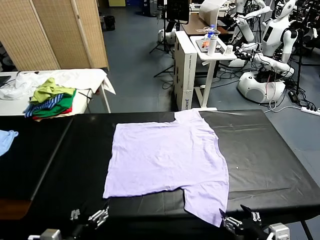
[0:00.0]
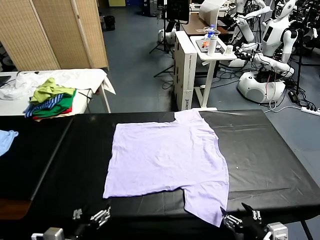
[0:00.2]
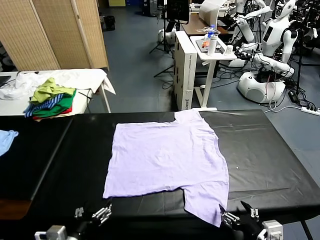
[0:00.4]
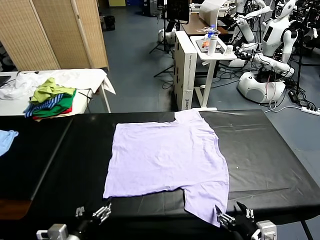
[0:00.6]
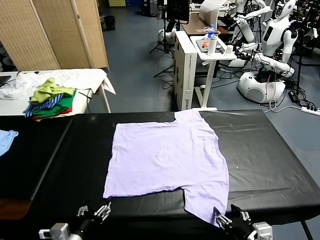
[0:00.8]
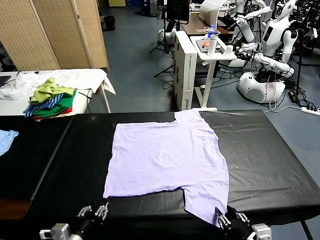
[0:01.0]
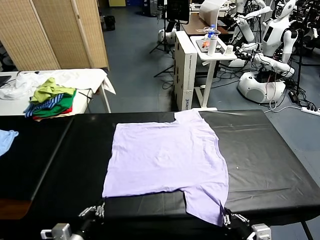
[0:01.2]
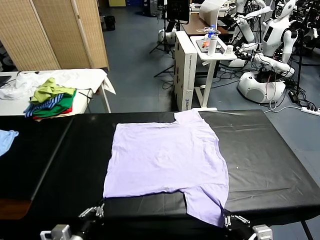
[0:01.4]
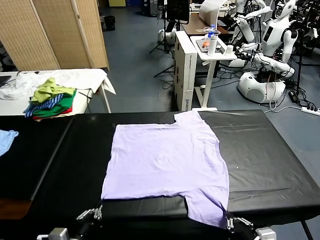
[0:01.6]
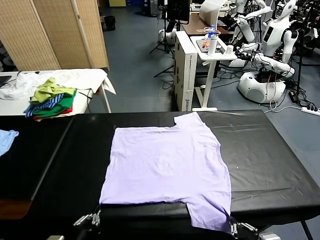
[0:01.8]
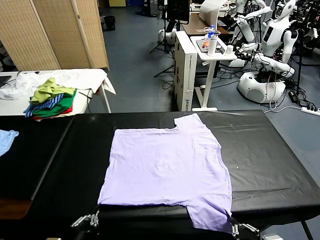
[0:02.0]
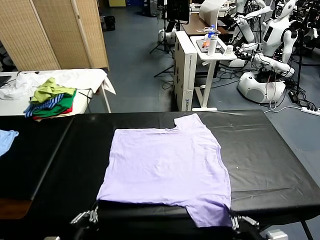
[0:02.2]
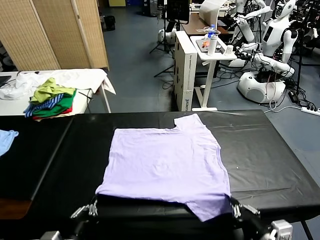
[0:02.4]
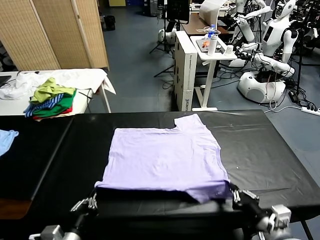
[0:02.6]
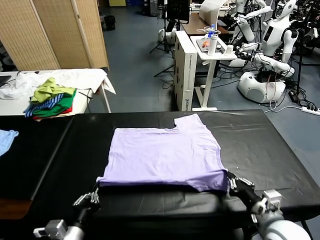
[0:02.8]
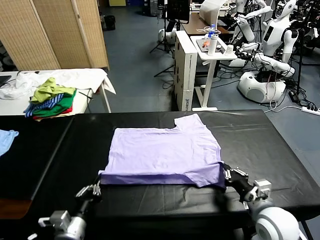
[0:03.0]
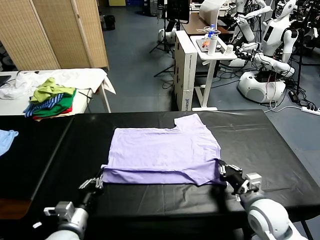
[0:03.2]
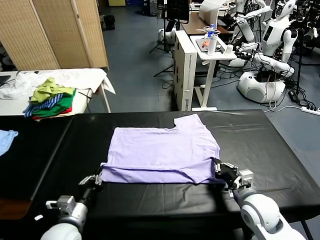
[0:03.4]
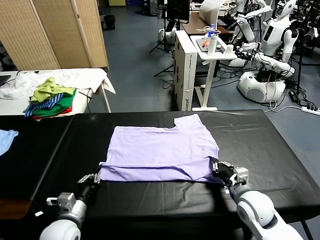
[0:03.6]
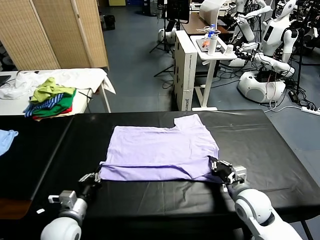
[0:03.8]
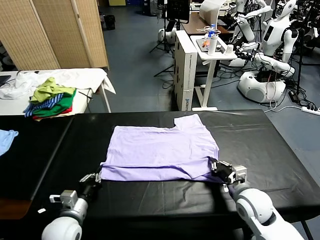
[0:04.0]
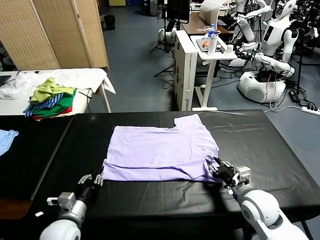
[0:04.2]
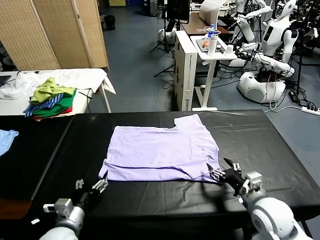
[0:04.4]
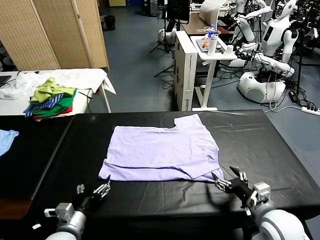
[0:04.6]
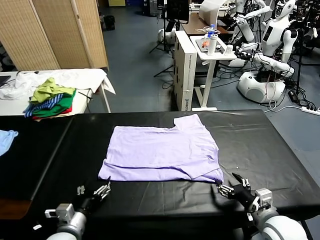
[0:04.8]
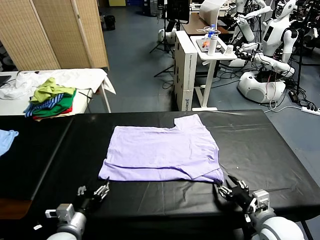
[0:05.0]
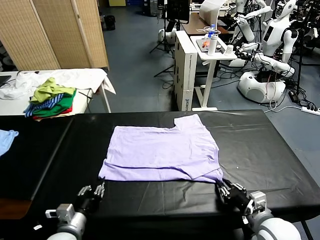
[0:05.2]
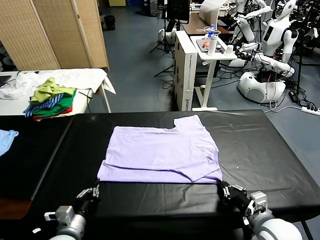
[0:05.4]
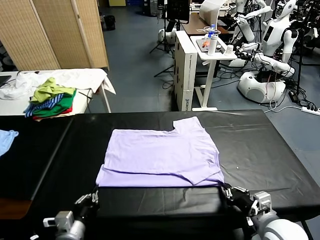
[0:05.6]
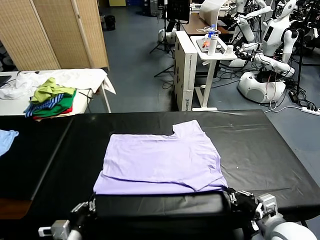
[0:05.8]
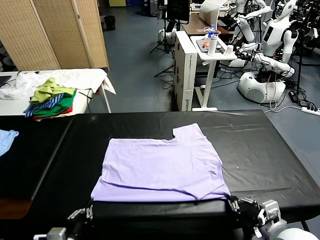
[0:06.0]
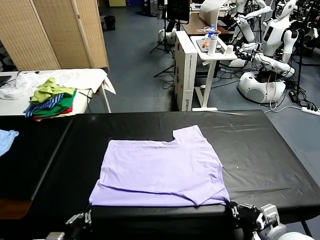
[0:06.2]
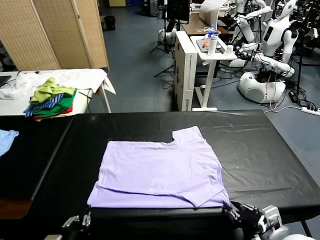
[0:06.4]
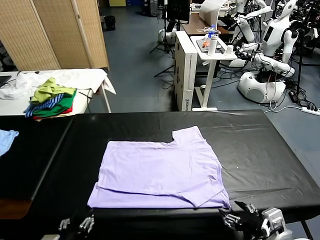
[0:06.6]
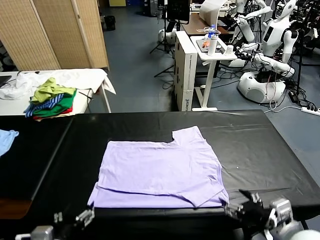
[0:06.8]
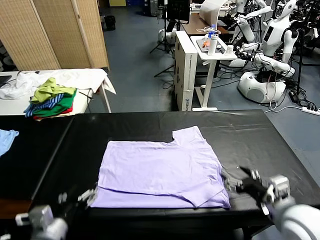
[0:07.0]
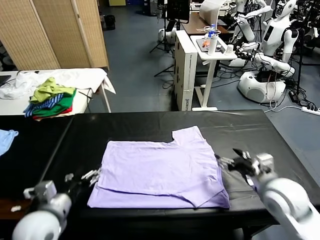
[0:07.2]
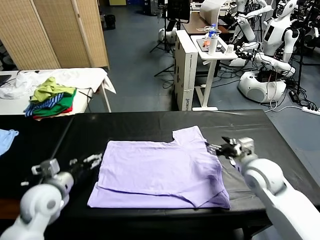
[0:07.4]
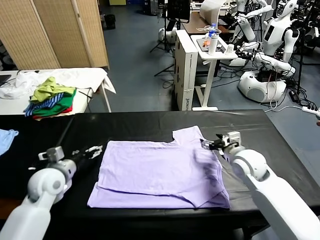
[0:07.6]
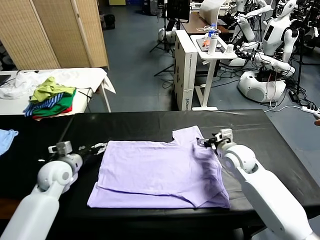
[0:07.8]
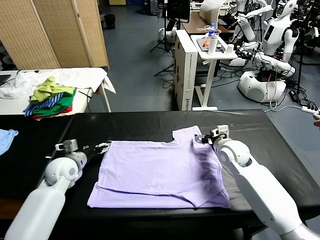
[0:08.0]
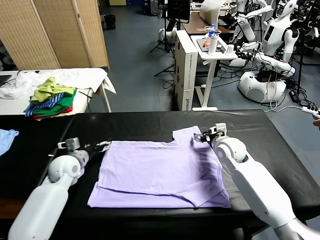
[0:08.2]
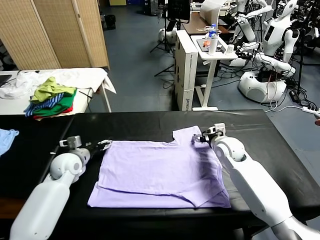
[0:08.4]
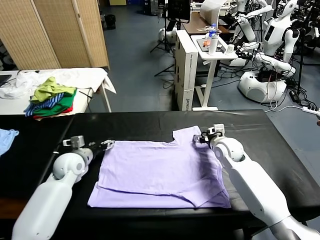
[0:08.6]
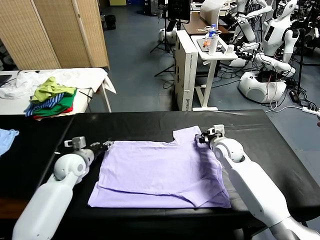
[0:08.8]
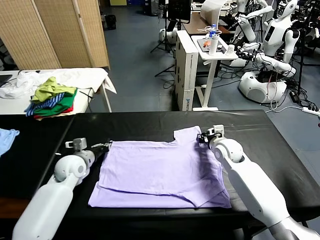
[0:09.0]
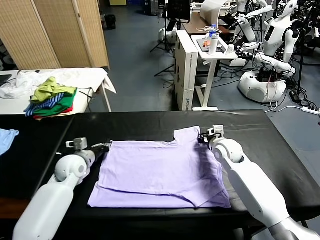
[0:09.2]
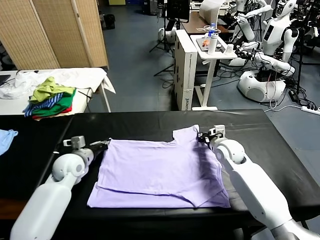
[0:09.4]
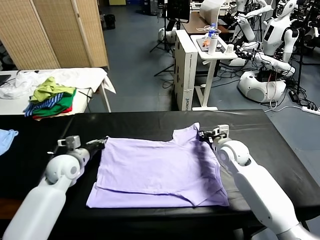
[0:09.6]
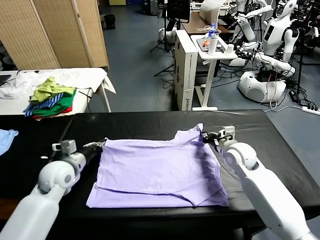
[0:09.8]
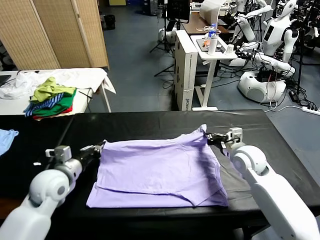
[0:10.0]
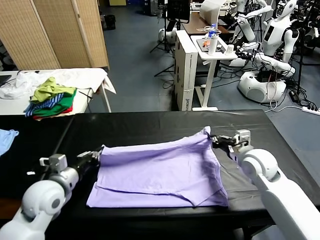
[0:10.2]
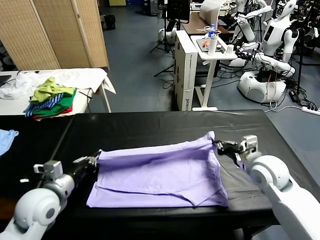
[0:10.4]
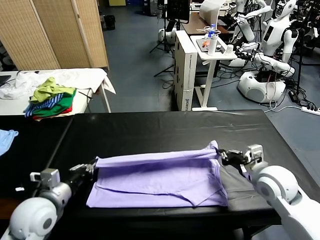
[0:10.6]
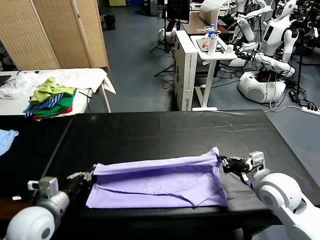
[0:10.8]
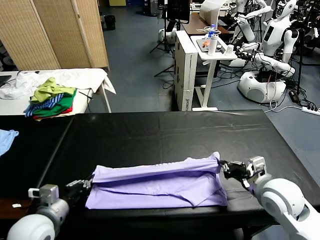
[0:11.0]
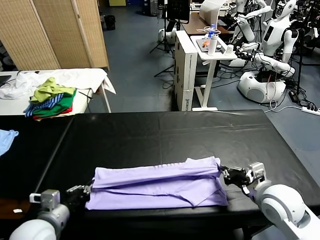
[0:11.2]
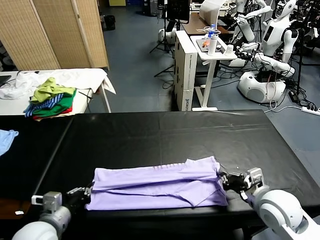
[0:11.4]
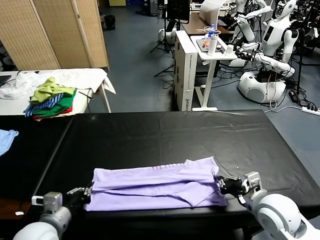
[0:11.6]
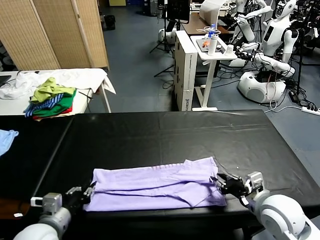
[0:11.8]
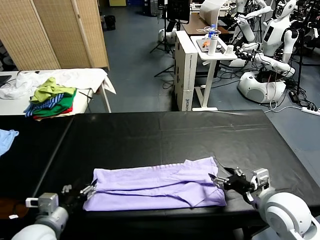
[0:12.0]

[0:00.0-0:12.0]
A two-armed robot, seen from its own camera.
Task of the whole recording: fold and organize the clothes.
Step, 0.0 to 1.4 s: use both grippers simultaneously to clamp the lower edge of the clothing fabric.
Step, 1.6 to 4.2 s: use both grippers to drag the lower edge of the fabric forward and fold it over the upper edge.
Step, 4.6 to 6.6 s: Drag the clothes downward with both gripper.
Step, 6.8 to 9.2 s: use both grippers simultaneously to clamp the upper edge of the clothing fabric.
1.6 to 3.0 s: The left gripper shifts roughly 5 cm forward; the right gripper travels forward by approximately 20 cm.
3.0 to 4.4 s: The left gripper opens up. The right gripper travels backward by roughly 5 cm, and opens its fingers.
4.4 to 6.0 s: The grippers both shift backward by about 5 cm. The right gripper closes up. The left gripper closes up.
6.0 to 7.6 s: The grippers both shift forward by approximately 25 cm. The right gripper opens up. The left gripper opens its fingers.
7.6 to 9.0 s: The left gripper heads forward, covering roughly 5 cm, and closes up. The right gripper moves about 5 cm, and closes.
9.0 to 10.4 s: The left gripper goes about 20 cm backward and upward; the right gripper heads backward, upward and to the right, covering about 20 cm.
10.4 to 12.0 s: The two grippers go roughly 5 cm backward. The right gripper opens up; the left gripper opens up.

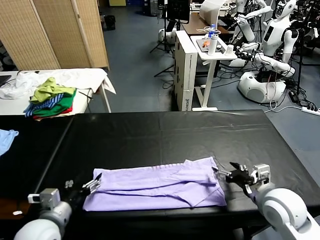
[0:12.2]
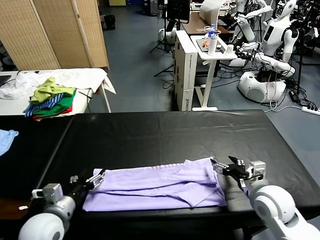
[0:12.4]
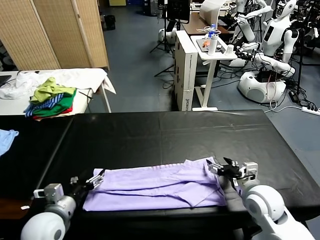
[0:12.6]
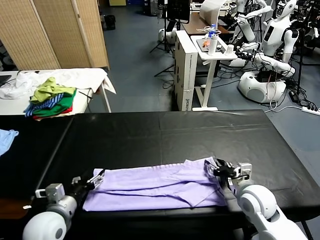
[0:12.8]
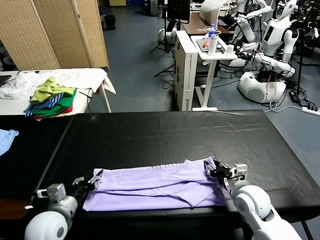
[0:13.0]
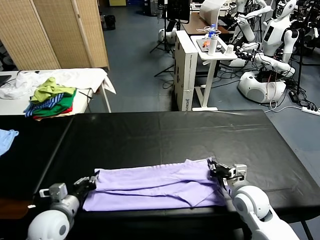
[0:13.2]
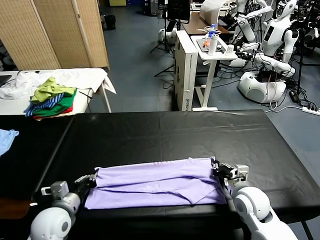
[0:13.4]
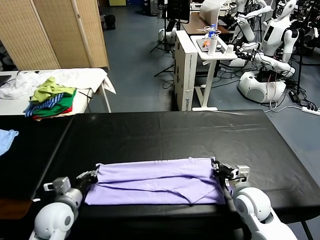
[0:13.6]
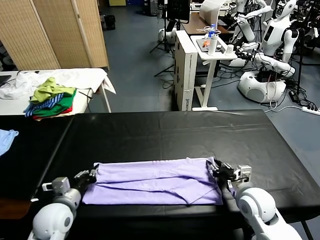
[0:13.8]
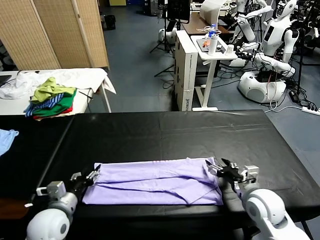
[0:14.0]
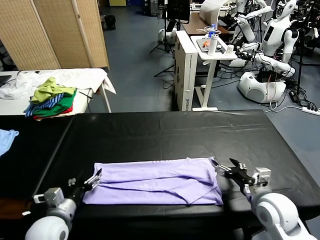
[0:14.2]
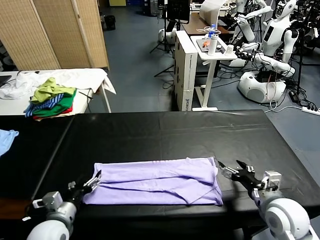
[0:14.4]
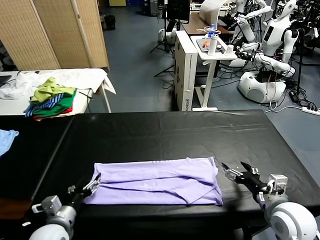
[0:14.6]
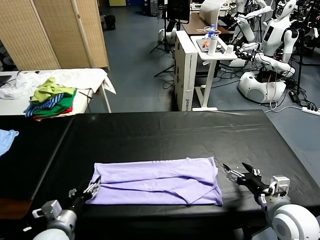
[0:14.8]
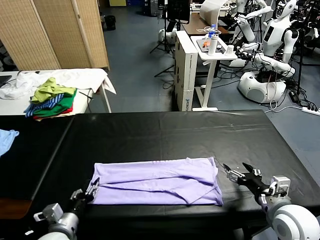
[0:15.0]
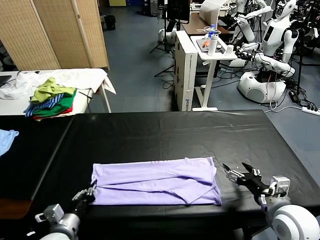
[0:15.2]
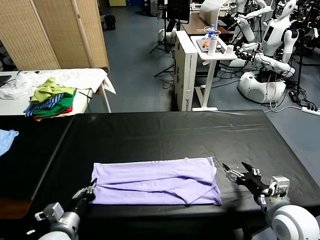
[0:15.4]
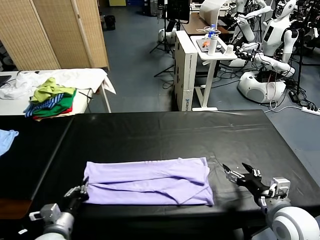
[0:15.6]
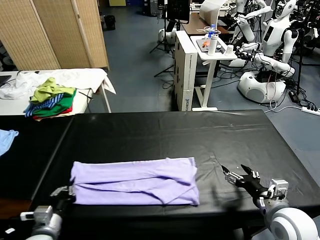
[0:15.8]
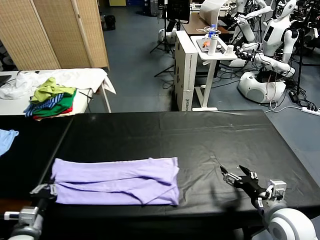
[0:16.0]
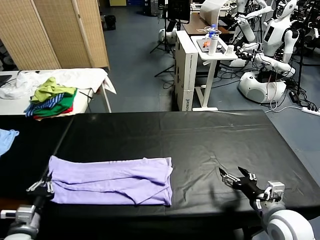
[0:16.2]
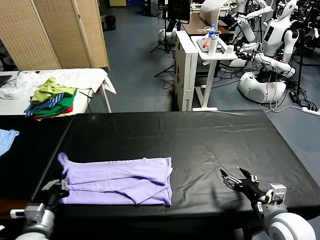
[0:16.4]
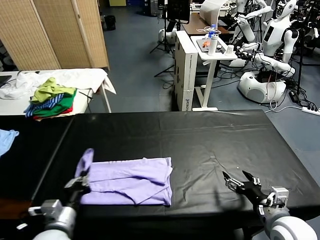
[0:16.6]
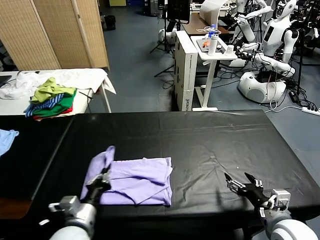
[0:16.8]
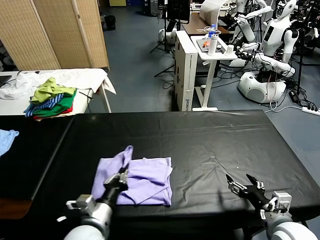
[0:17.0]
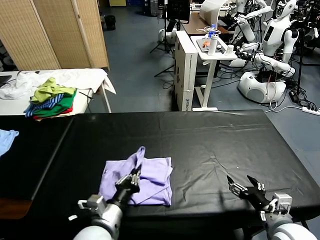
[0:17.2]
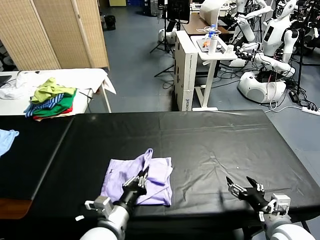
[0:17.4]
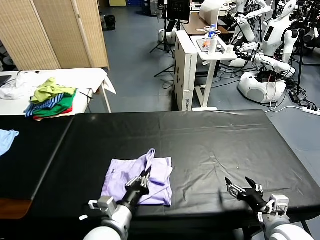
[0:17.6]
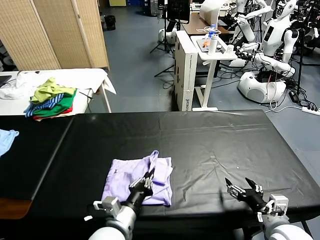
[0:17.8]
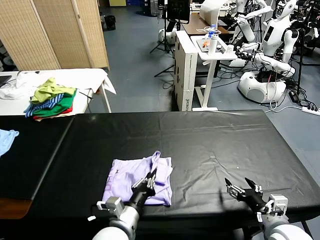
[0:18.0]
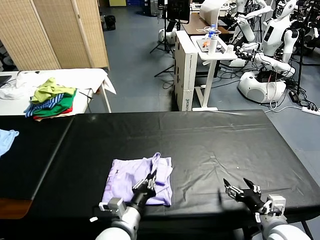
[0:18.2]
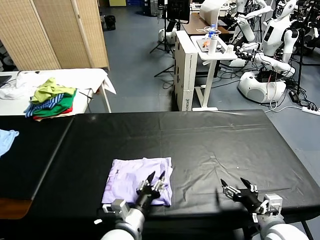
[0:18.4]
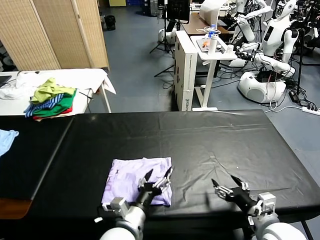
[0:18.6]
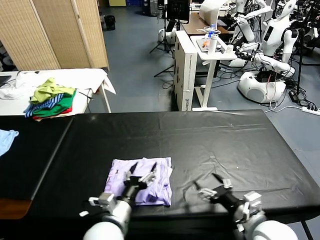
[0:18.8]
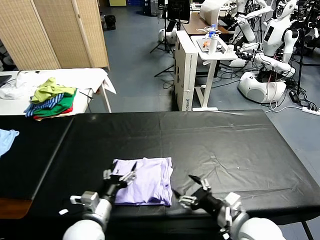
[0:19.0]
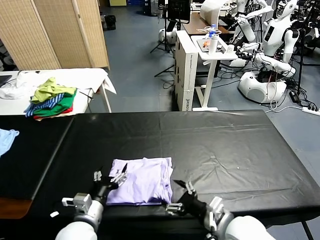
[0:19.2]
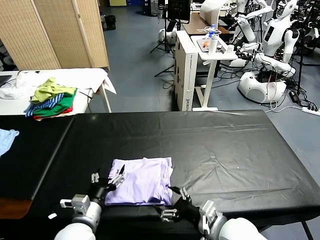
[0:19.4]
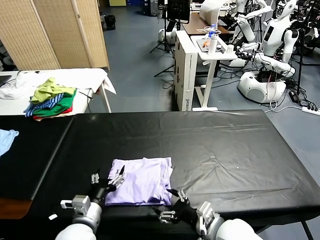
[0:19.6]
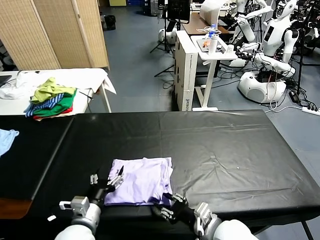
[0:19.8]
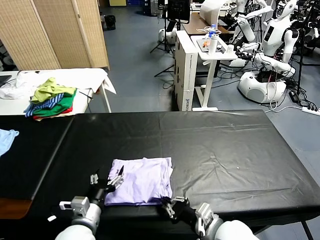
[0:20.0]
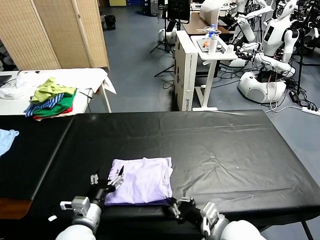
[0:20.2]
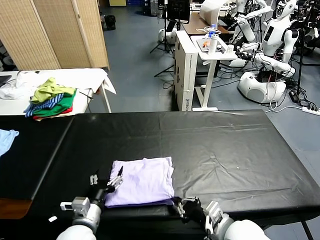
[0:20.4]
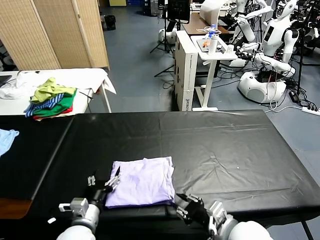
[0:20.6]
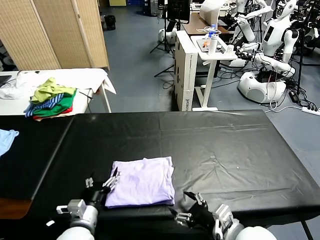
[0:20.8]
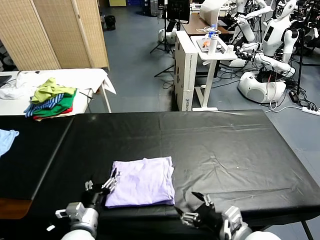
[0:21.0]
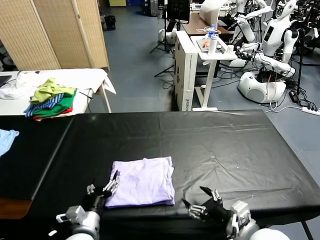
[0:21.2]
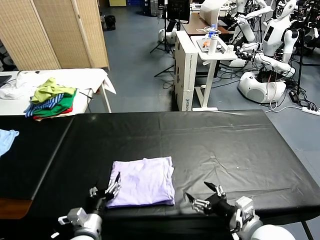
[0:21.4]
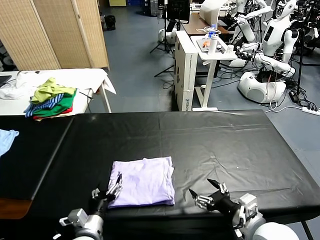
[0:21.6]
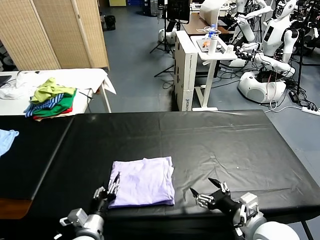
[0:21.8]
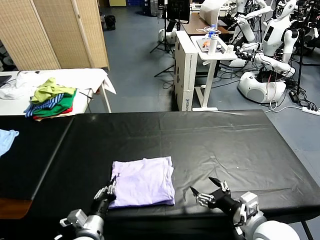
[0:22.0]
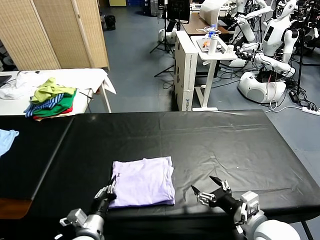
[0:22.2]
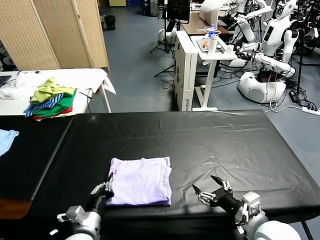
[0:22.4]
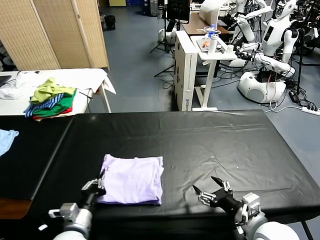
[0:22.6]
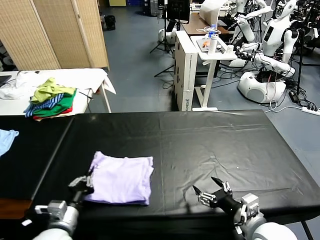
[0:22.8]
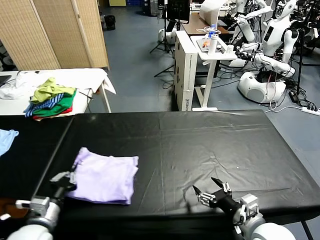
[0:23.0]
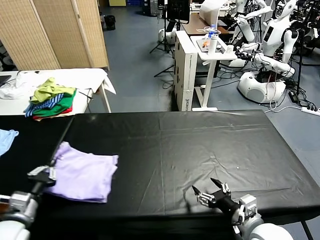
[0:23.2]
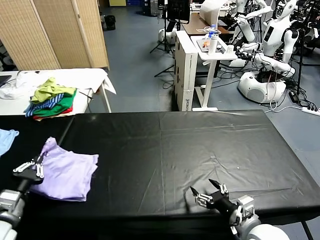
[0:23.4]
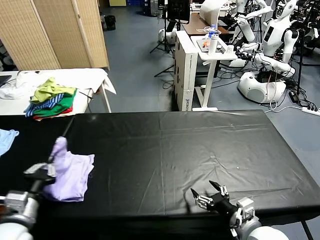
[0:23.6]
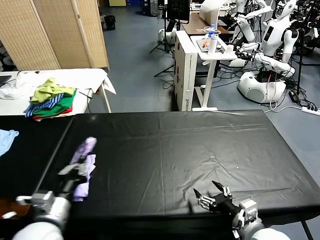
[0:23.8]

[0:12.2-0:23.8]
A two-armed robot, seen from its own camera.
Task of the whole recording: fold and organize the clothes.
Step, 12.2 to 15.4 s: use the left gripper to clamp the left edge of the fabric.
Step, 15.6 to 18.8 s: use the left gripper to drag the left edge of the fabric to the left and folds it over the right edge.
12.2 to 13.6 s: The left gripper moves forward and downward, approximately 10 cm, and closes up, while the right gripper moves downward, some 5 cm, and closes its fingers.
13.6 to 15.0 s: The right gripper shifts about 10 cm backward, upward and to the right, and opens. Meanwhile the left gripper travels backward by approximately 5 cm, and opens its fingers.
15.0 to 16.6 s: The left gripper goes to the left and returns, some 10 cm each way, and closes its fingers.
16.6 to 18.0 s: The left gripper is displaced to the right by approximately 15 cm.
18.0 to 19.4 s: Both grippers move to the left, some 10 cm. The left gripper opens.
19.4 to 21.0 s: The right gripper ends up about 5 cm from where it was, and closes and opens again.
21.0 to 22.4 s: The left gripper closes up.
22.4 to 23.8 s: The left gripper travels upward and to the left by about 15 cm.
